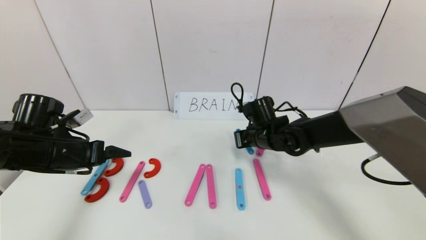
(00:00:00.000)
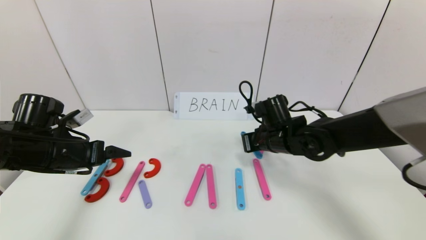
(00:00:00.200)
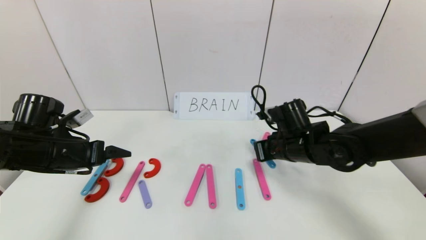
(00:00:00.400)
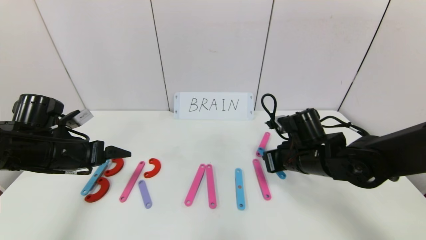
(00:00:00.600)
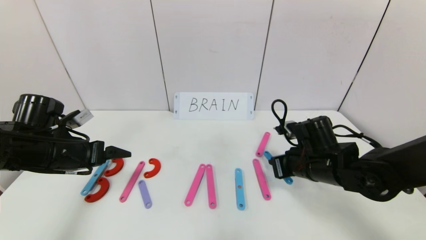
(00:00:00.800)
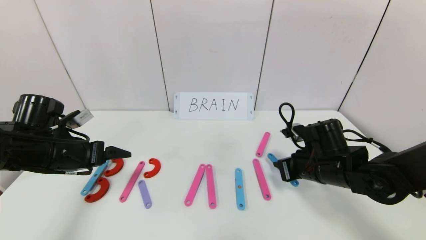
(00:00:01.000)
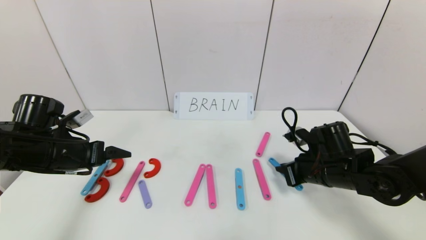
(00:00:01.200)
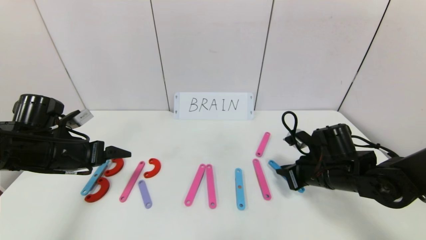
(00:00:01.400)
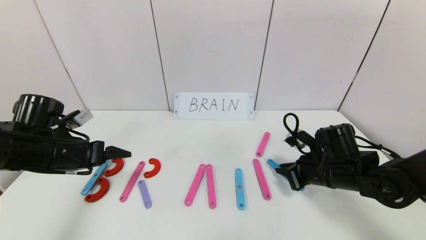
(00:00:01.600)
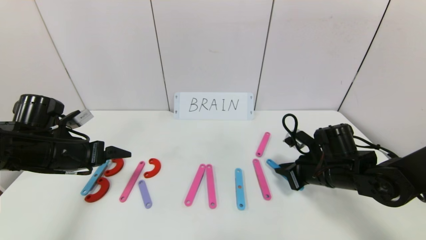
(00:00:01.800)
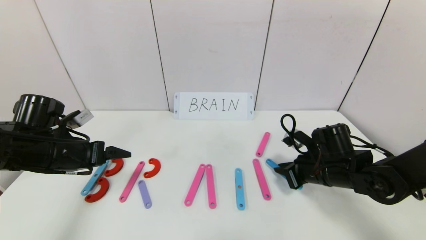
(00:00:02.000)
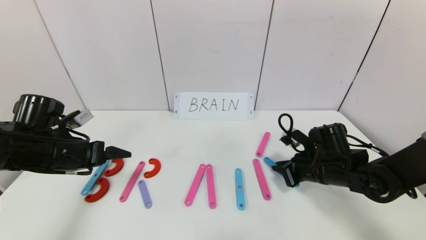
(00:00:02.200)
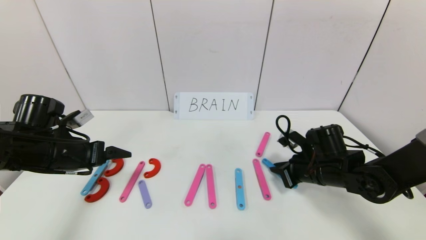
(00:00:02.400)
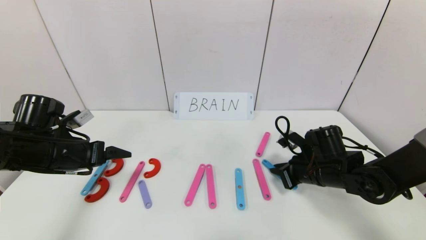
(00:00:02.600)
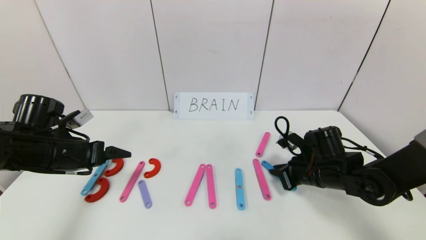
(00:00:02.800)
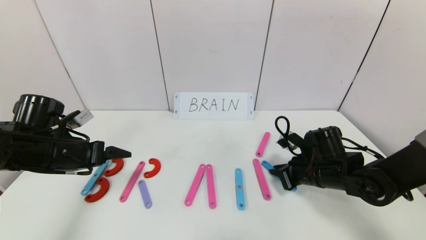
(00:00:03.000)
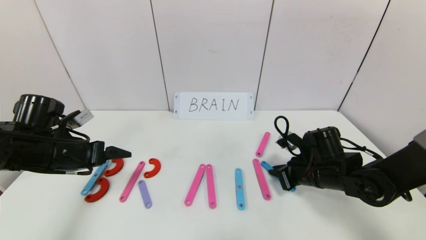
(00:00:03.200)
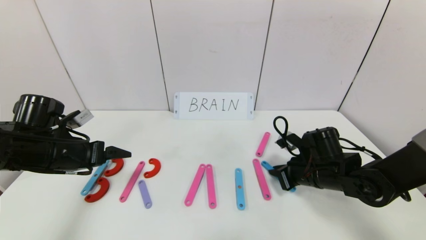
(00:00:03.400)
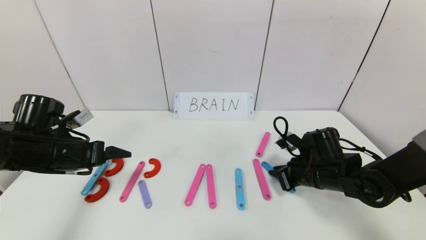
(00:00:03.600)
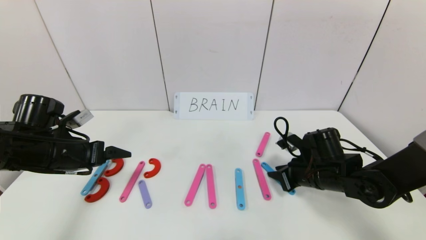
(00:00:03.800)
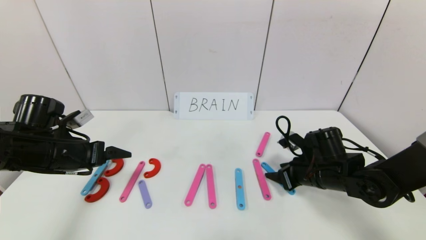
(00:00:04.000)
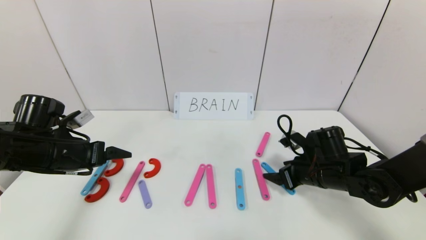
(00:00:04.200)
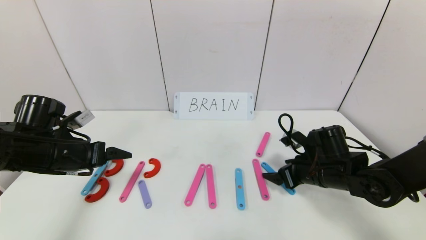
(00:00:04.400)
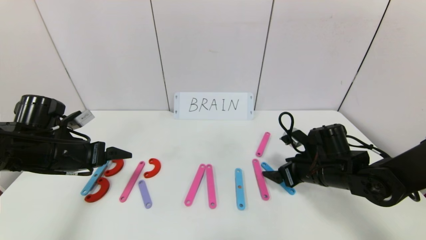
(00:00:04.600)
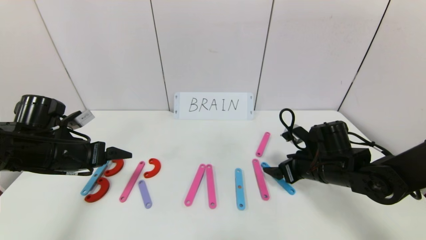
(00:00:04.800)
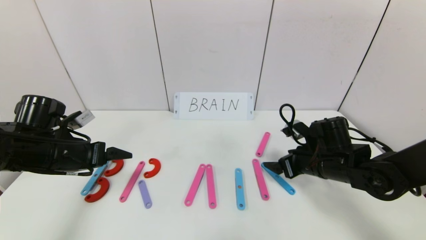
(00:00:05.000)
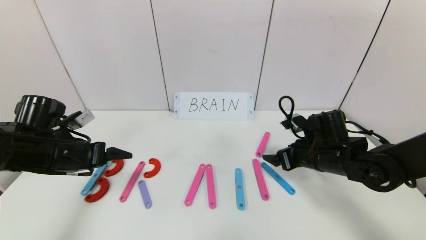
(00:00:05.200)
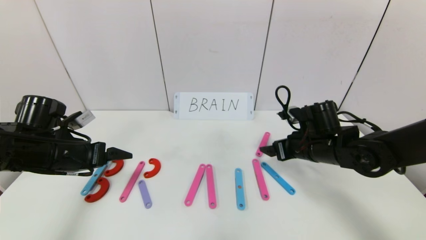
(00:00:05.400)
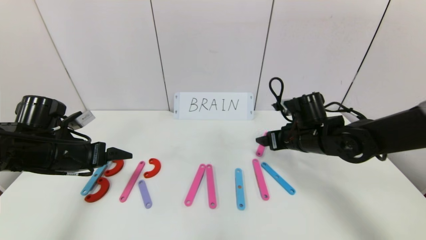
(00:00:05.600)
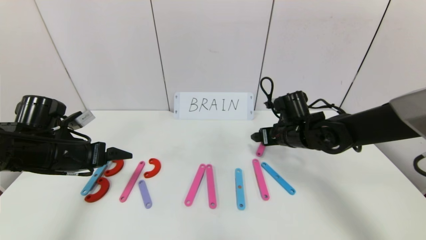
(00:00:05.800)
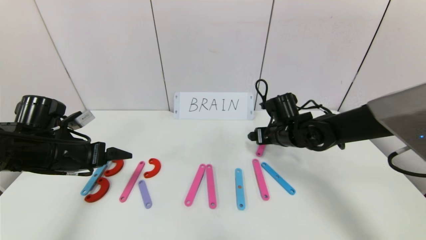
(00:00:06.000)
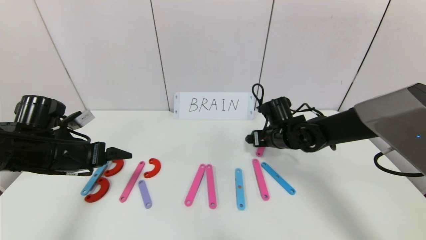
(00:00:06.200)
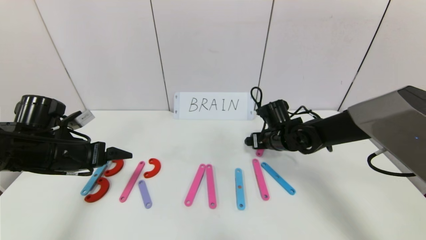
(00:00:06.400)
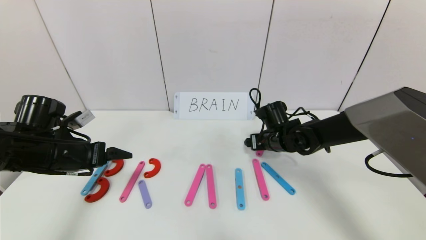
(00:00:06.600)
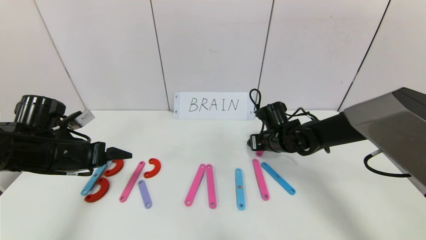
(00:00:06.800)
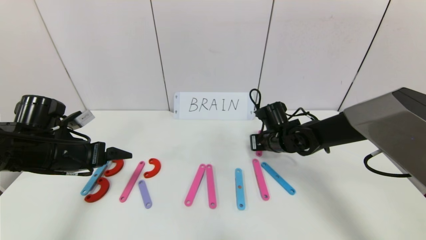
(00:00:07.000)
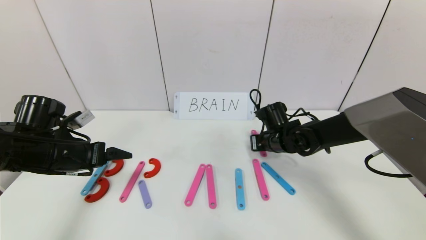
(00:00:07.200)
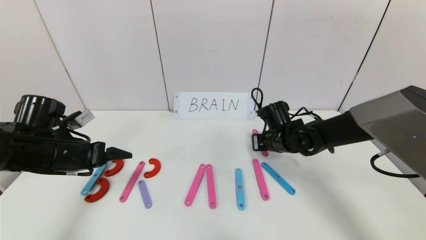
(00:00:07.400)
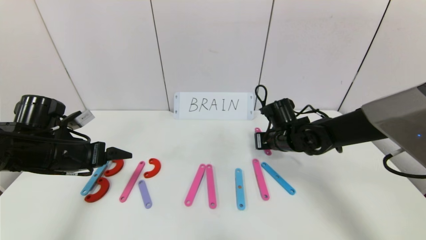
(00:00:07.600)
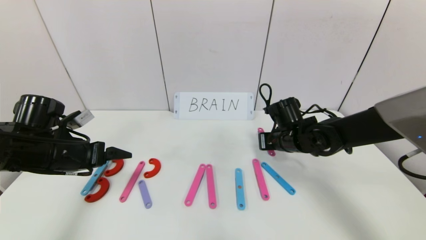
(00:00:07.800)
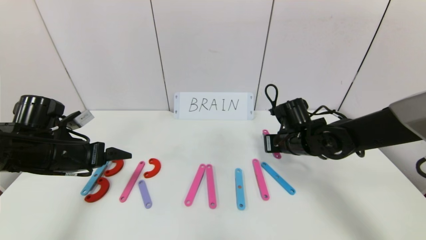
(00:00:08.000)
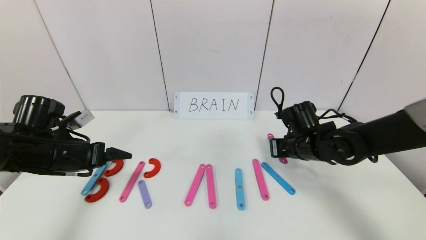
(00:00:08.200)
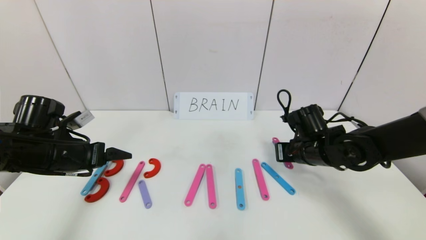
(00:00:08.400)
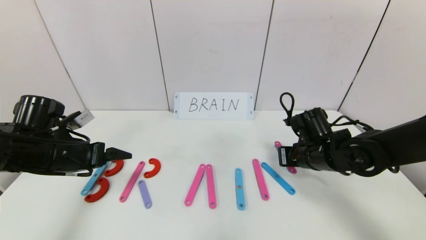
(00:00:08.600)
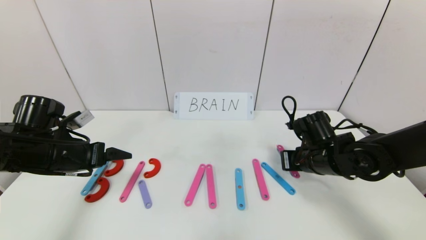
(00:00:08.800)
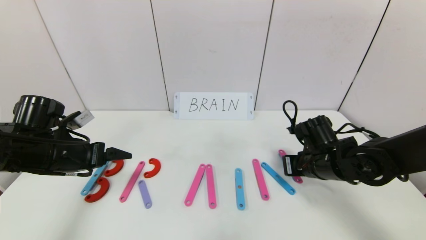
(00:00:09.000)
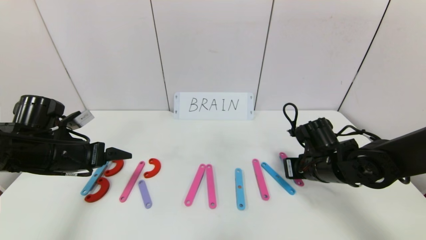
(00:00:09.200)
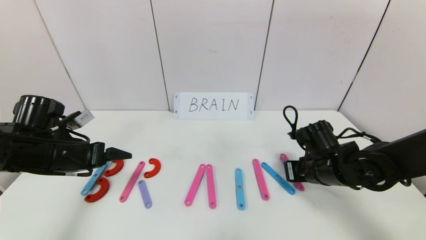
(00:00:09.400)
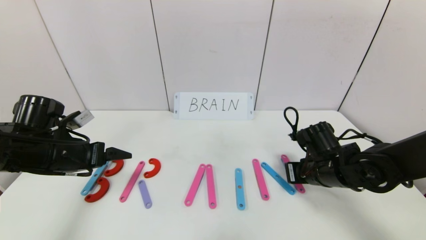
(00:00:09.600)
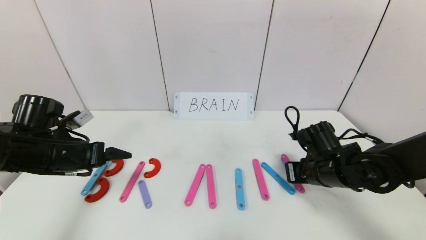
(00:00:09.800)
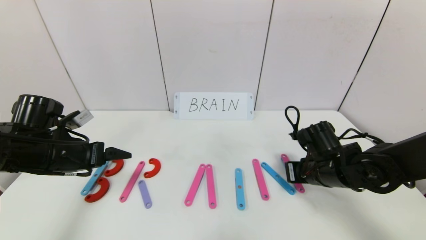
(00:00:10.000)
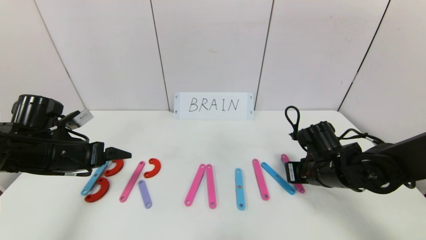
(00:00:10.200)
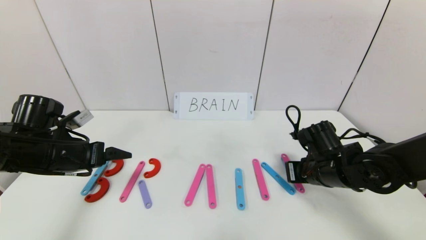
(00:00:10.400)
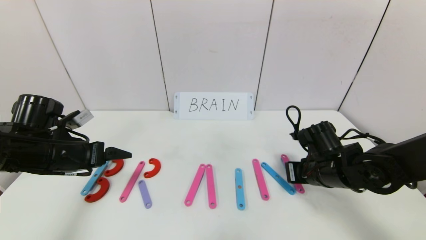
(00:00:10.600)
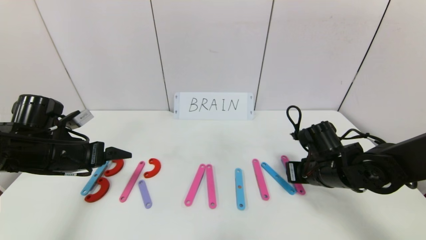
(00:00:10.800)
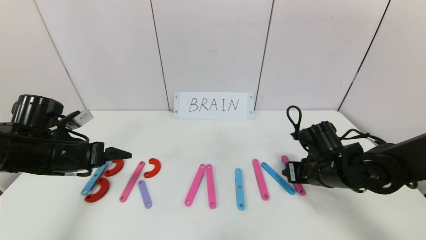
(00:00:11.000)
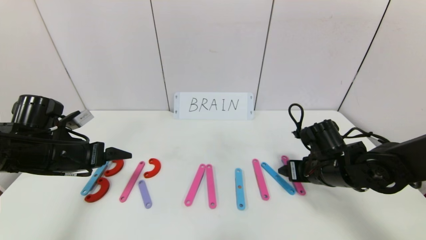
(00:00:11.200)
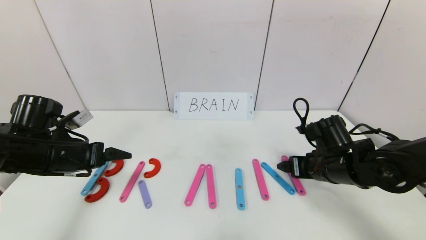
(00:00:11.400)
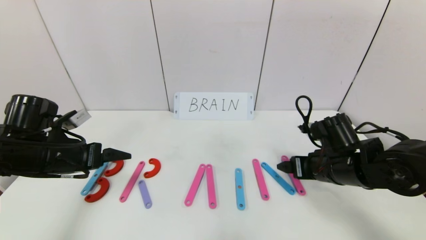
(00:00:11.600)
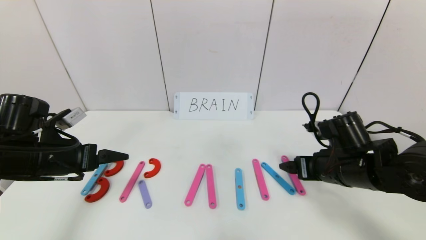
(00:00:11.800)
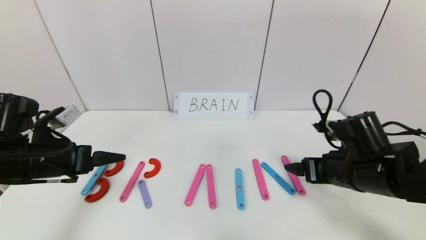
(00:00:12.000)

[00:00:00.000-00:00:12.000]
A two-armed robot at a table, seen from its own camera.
Task of the whole recording: rearrange the word baai as brain.
Step, 00:00:00.000 to 00:00:12.000: Place the character N after character I.
00:00:00.000 to 00:00:01.600: The right gripper heads to the right and backward, covering some 15 cm.
00:00:01.600 to 00:00:03.000: The grippers make only small movements.
00:00:03.000 to 00:00:04.400: The right gripper opens its fingers.
00:00:04.400 to 00:00:06.000: The right gripper shifts roughly 10 cm forward and to the left.
00:00:06.000 to 00:00:07.600: The right gripper closes up.
00:00:07.600 to 00:00:09.000: The right gripper goes some 10 cm backward and to the right.
00:00:09.000 to 00:00:10.400: The two grippers keep their place.
00:00:10.400 to 00:00:12.000: The right gripper moves some 5 cm, and opens.

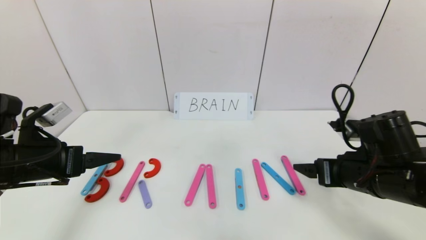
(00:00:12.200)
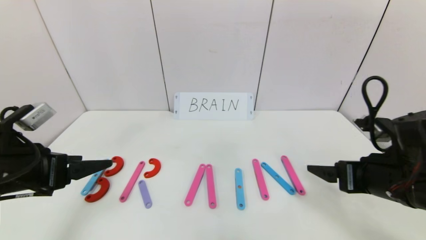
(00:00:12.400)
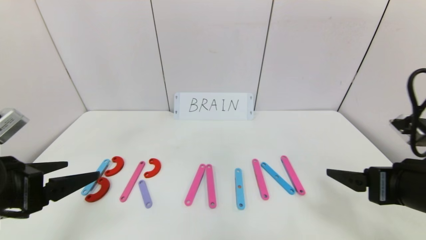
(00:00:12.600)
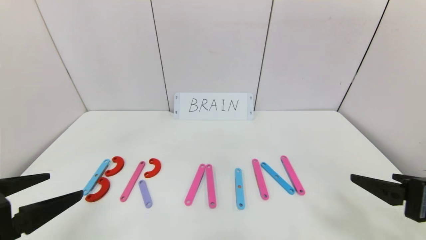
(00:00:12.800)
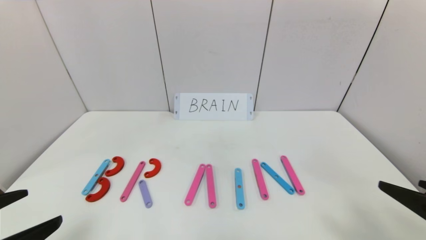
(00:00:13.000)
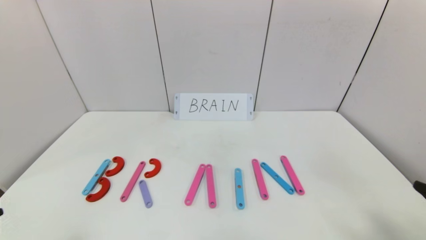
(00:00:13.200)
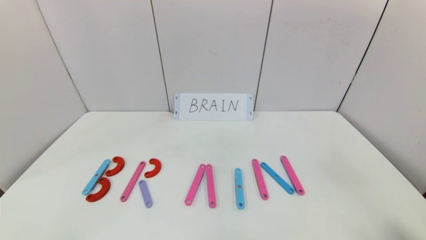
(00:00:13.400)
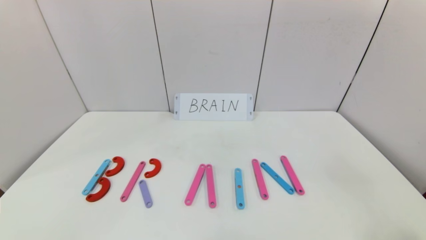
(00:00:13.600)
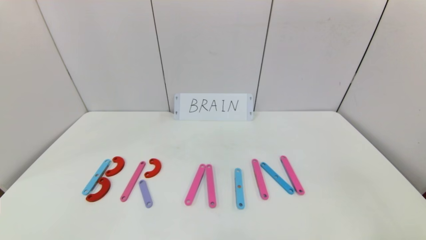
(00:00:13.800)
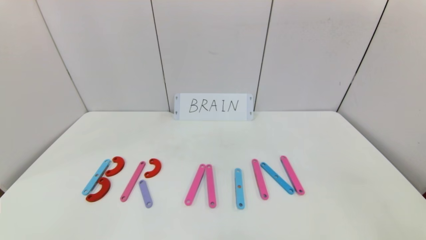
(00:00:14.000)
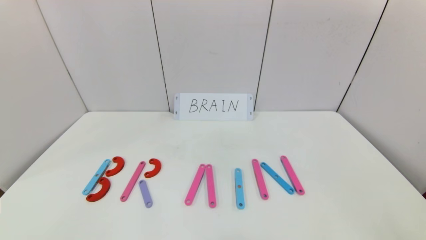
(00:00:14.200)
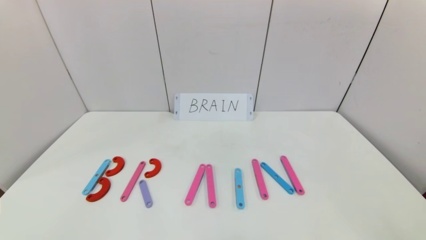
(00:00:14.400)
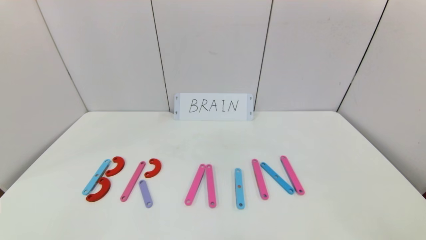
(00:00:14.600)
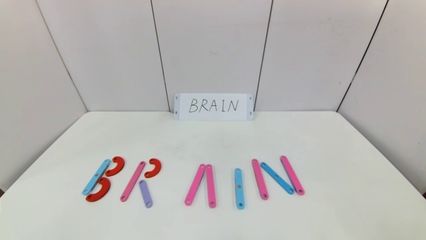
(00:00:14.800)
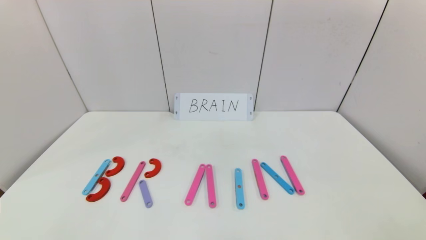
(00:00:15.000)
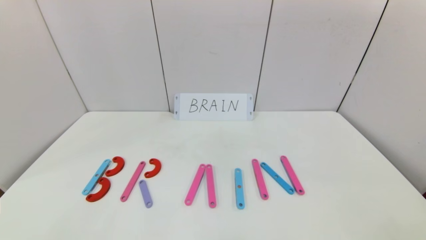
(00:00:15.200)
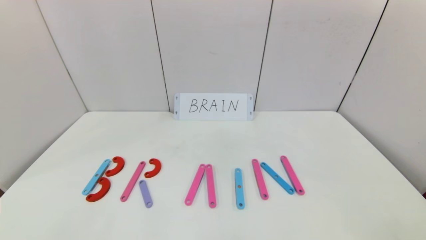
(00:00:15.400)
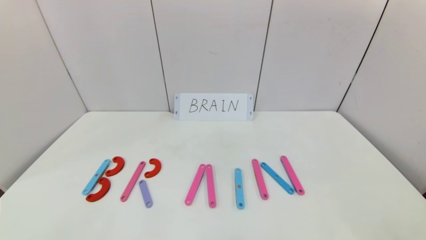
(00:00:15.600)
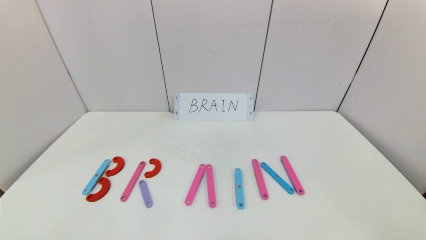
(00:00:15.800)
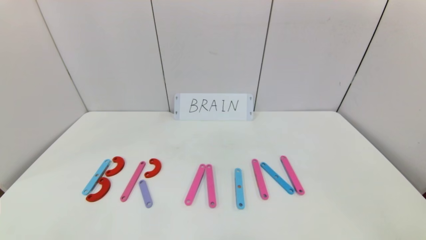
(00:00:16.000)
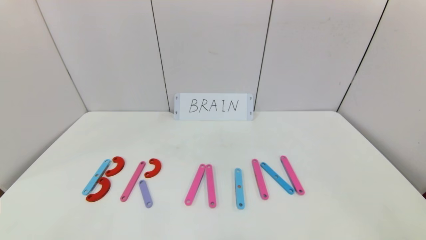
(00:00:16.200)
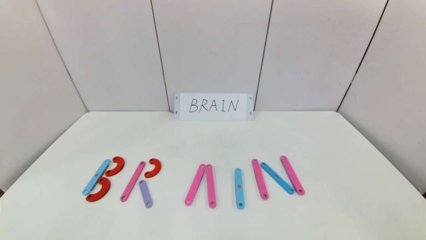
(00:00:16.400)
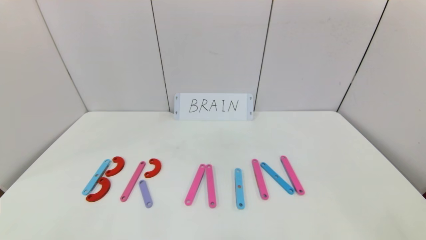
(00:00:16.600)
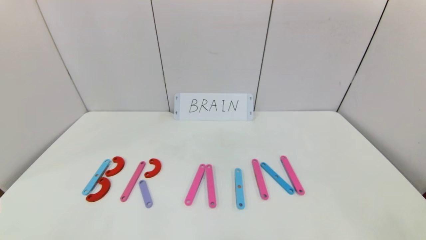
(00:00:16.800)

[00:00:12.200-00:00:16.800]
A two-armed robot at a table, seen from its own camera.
Task of the whole recording: rearrange the word baai as brain.
00:00:12.200 to 00:00:13.800: Both grippers travel together backward, roughly 25 cm.
